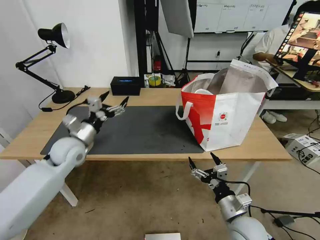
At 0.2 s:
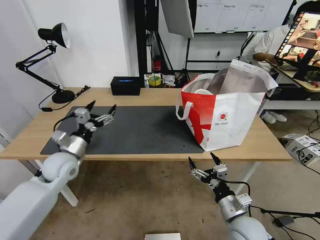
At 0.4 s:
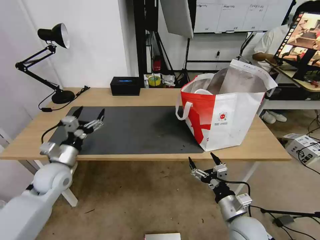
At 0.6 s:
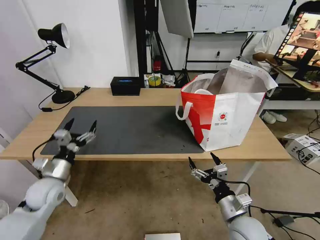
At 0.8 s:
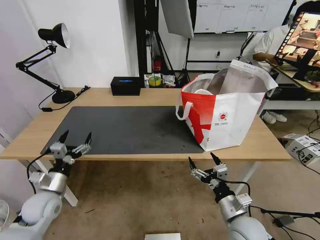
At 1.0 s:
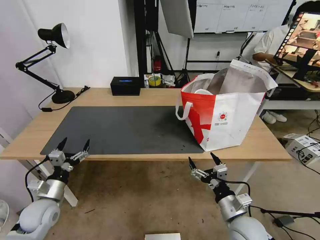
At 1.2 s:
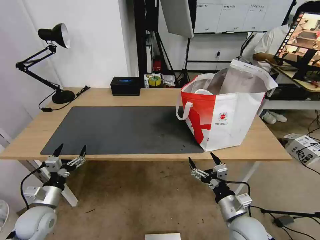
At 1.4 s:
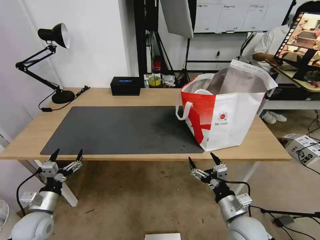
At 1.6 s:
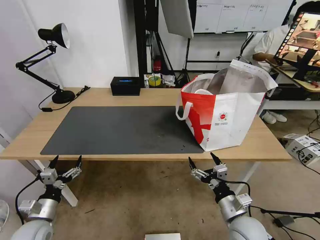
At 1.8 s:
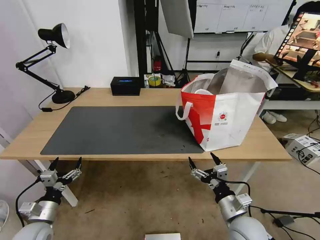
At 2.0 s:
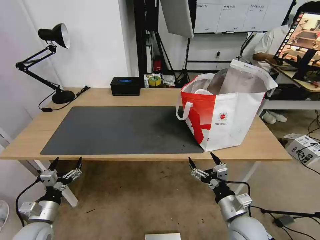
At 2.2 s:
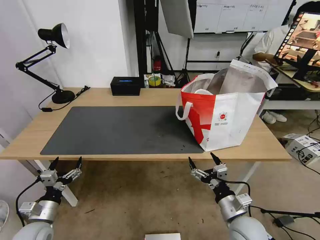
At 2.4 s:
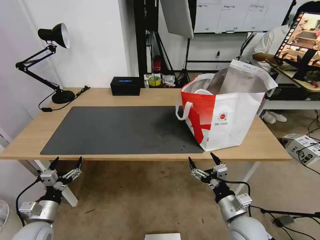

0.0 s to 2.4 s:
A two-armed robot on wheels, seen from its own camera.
Task of the whole recording: Pick up the trash from the table and place it into the takeout bag.
0.0 to 1.2 s: The left gripper travels backward, downward and to the left by roughly 25 cm.
1.2 to 2.4 s: There are only small adjustments of the grippers.
